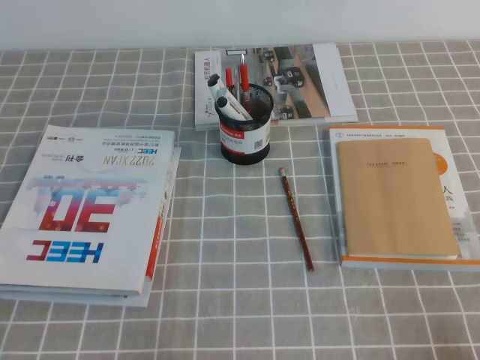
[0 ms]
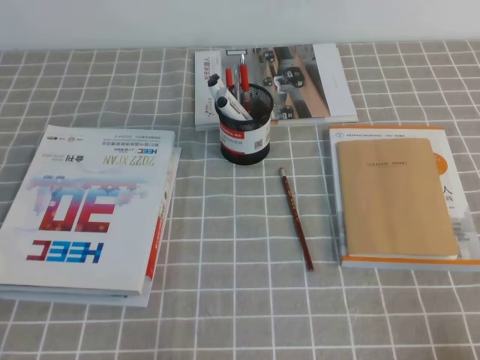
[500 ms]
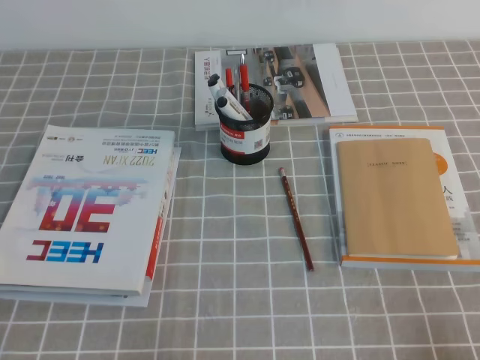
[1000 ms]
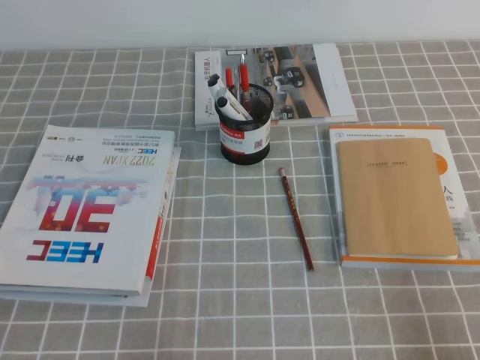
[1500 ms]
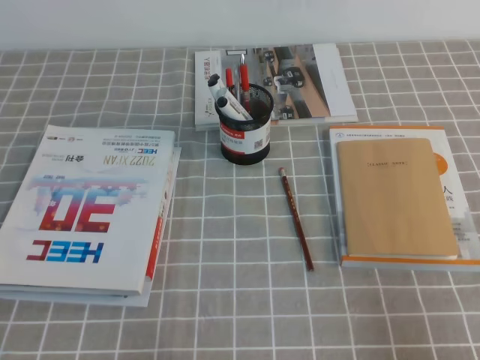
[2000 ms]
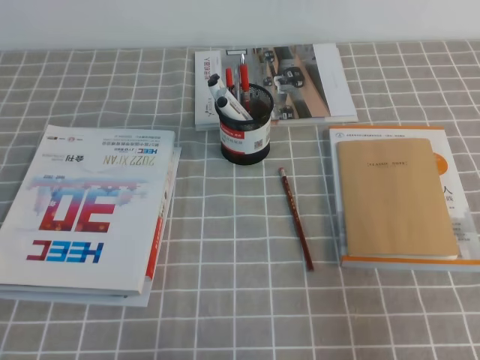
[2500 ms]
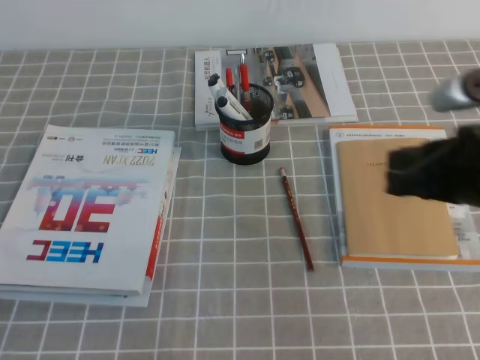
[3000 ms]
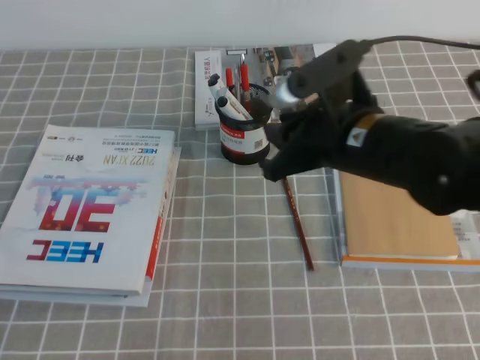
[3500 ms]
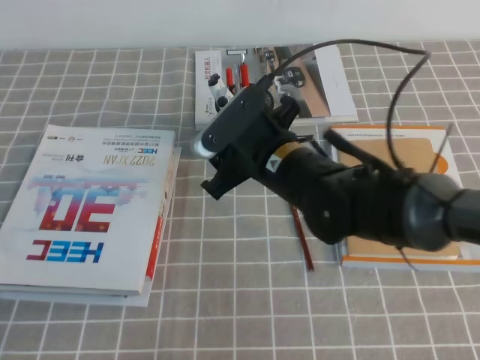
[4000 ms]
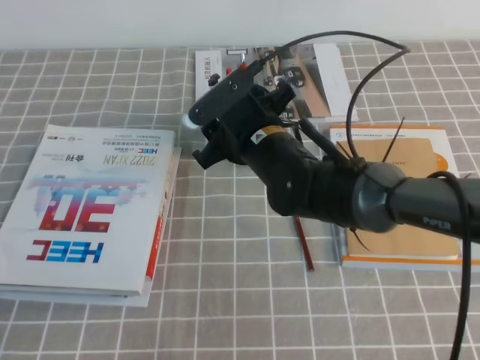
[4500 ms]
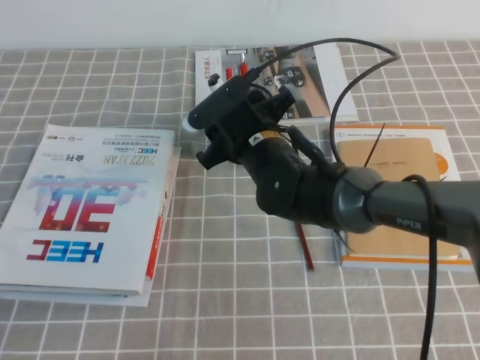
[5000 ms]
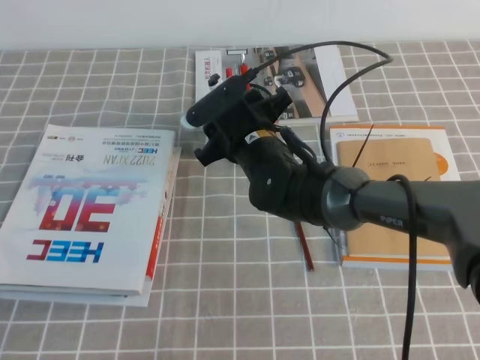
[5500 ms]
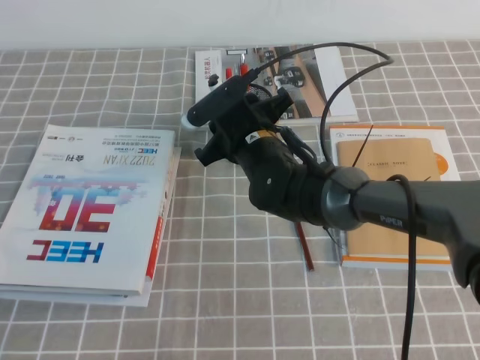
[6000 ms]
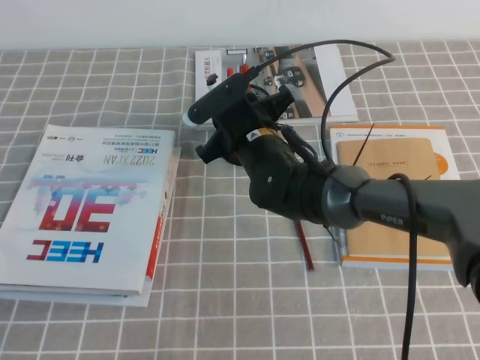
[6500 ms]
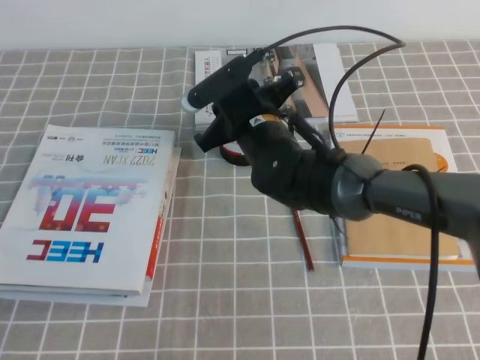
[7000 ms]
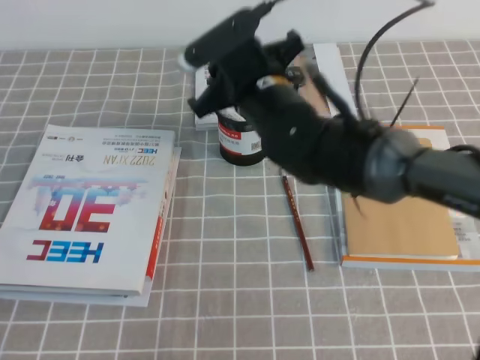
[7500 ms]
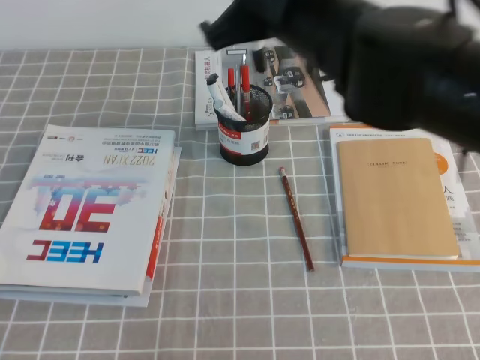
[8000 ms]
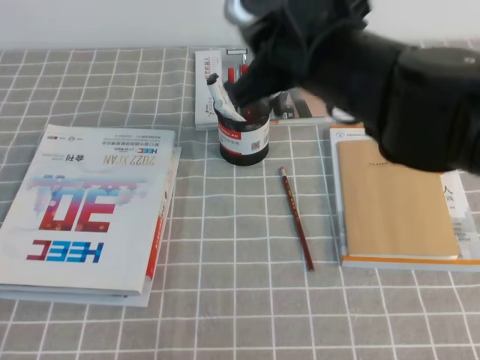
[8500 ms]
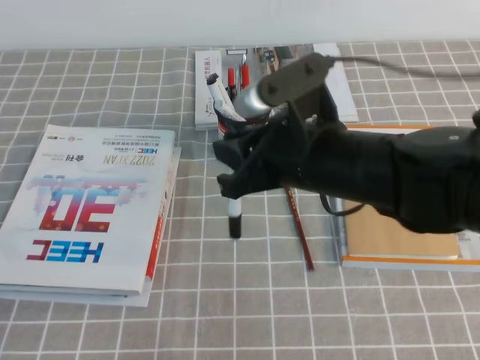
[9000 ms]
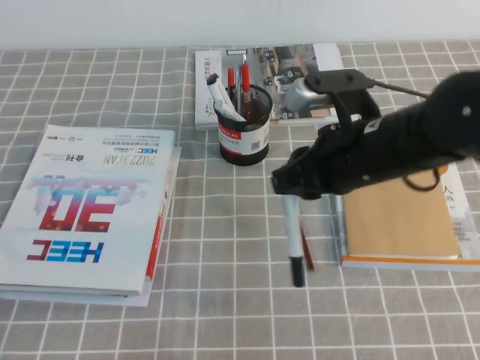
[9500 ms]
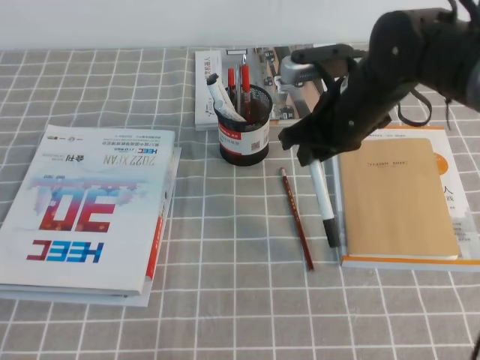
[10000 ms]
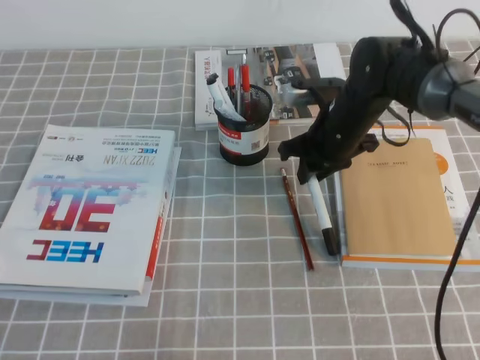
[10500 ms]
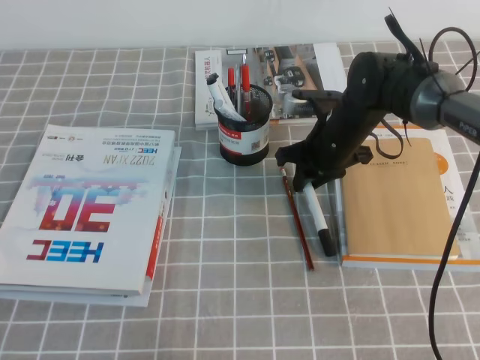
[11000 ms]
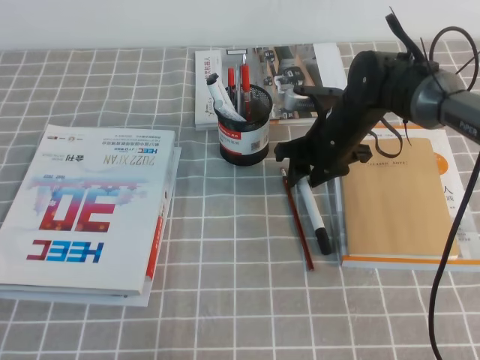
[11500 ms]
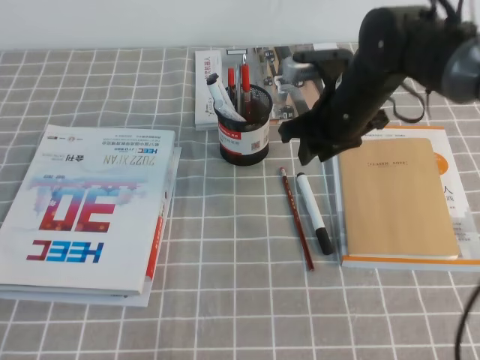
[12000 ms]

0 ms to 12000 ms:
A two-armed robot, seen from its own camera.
2000 ms to 4000 ms: The right gripper is displaced to the left and forward by some 35 cm, and opens.
4000 ms to 6000 ms: The right gripper is displaced forward by some 5 cm, and closes its fingers.
6000 ms to 8000 ms: The right gripper travels upward by roughly 20 cm.
8000 ms to 10000 ms: The right gripper shifts roughly 15 cm downward, to the right and forward.
10000 ms to 12000 ms: The right gripper moves about 10 cm downward and comes back.

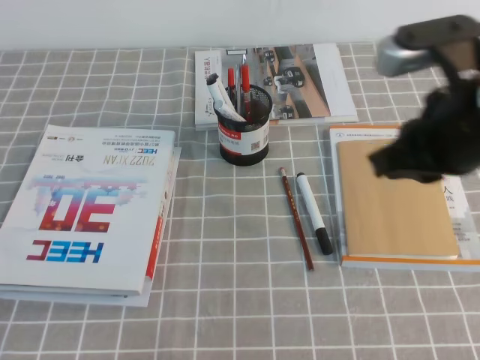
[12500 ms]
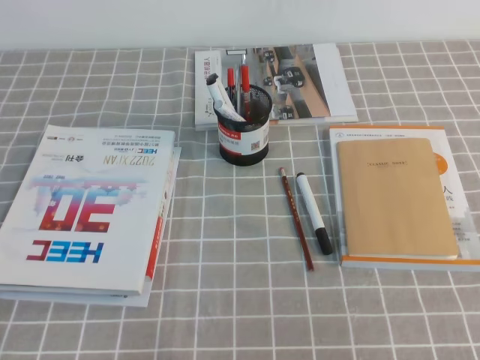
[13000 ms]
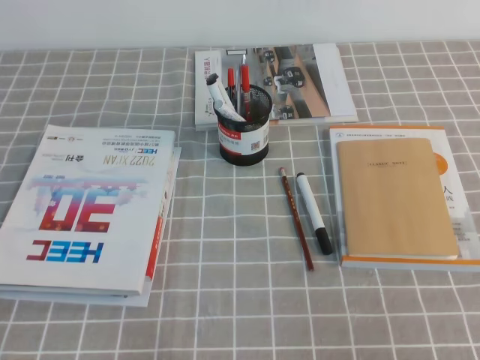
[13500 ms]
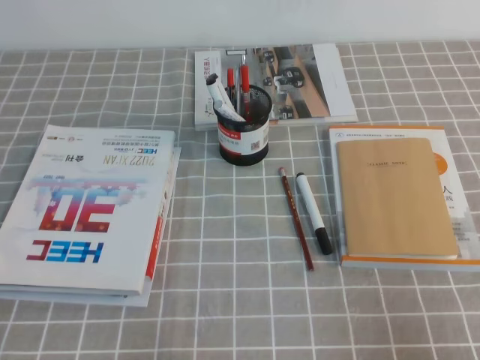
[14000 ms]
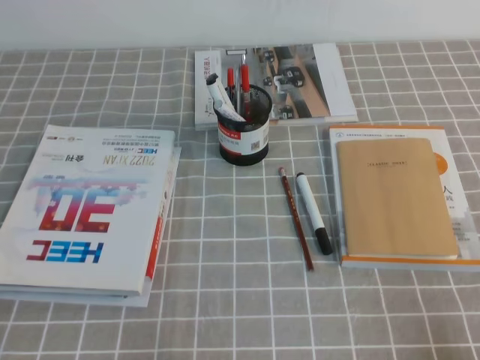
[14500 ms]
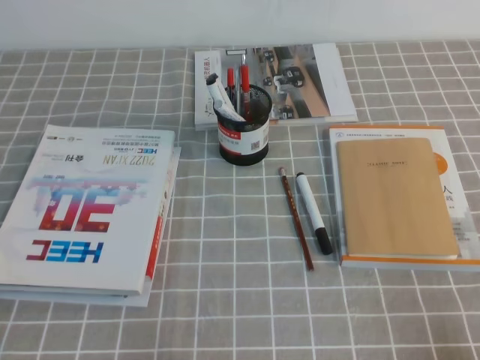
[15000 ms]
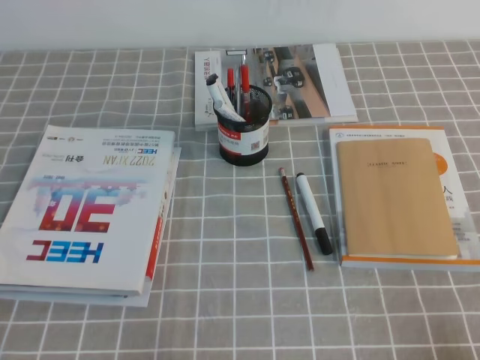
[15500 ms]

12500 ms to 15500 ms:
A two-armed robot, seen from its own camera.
Step, 12500 ms to 15500 ms: Pick up the pen from the pen holder.
12500 ms to 14000 ms: The right gripper goes approximately 25 cm backward, to the right and downward.
